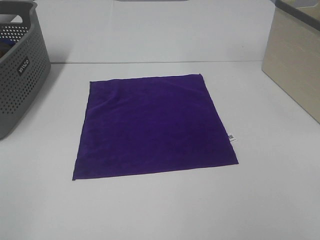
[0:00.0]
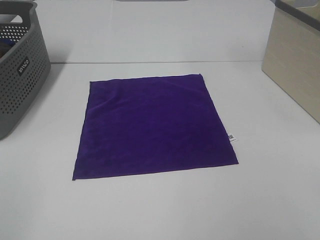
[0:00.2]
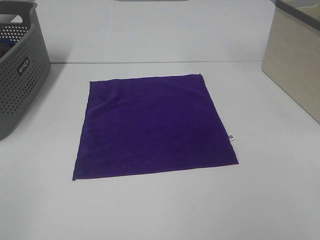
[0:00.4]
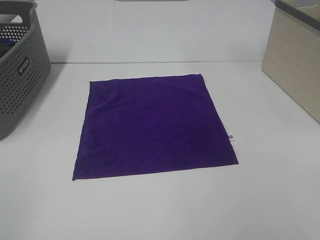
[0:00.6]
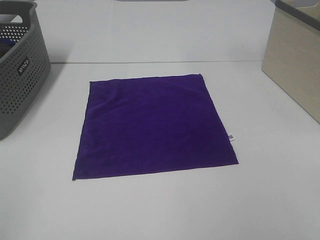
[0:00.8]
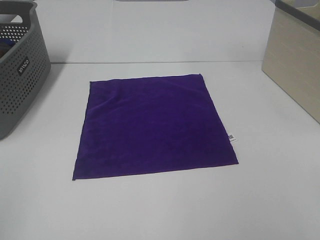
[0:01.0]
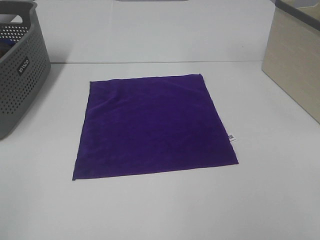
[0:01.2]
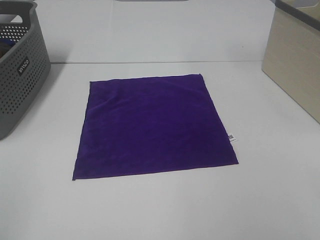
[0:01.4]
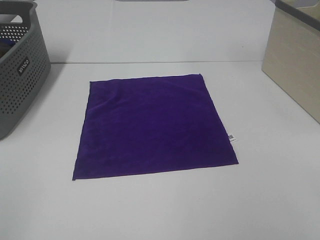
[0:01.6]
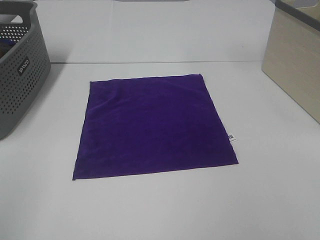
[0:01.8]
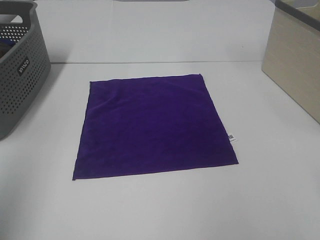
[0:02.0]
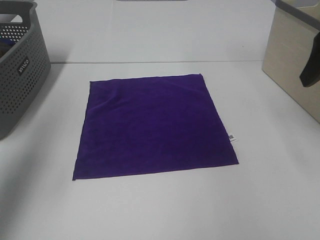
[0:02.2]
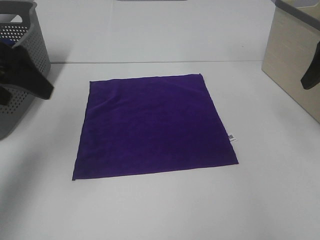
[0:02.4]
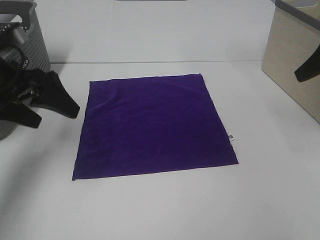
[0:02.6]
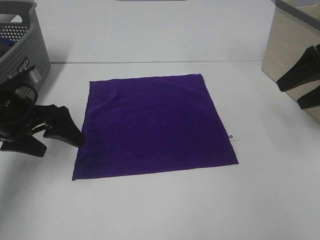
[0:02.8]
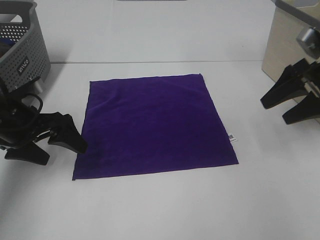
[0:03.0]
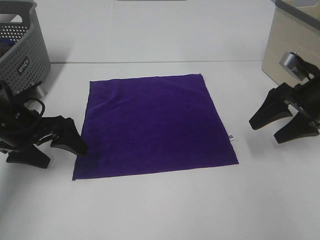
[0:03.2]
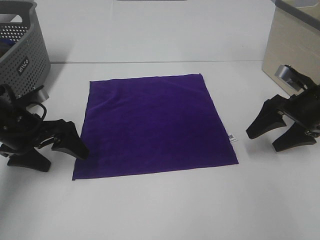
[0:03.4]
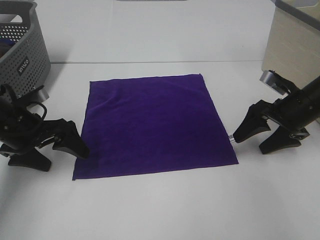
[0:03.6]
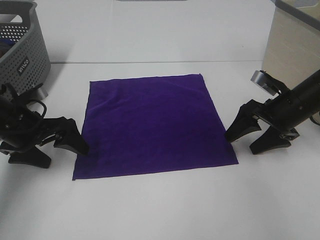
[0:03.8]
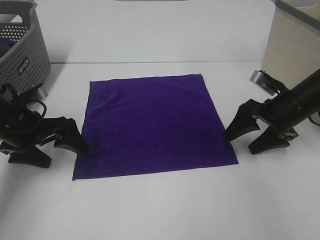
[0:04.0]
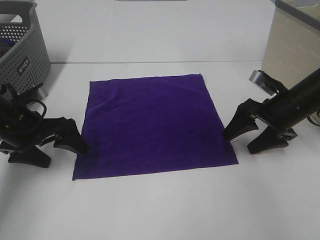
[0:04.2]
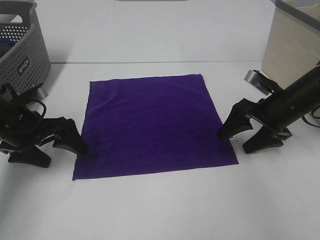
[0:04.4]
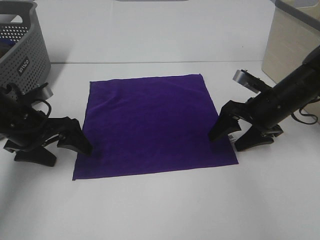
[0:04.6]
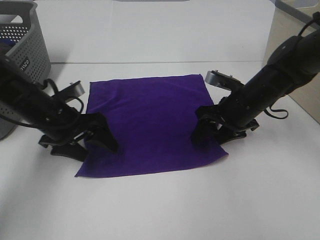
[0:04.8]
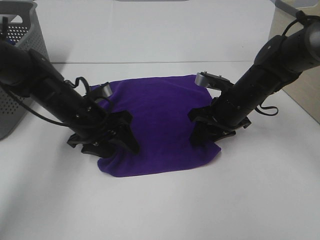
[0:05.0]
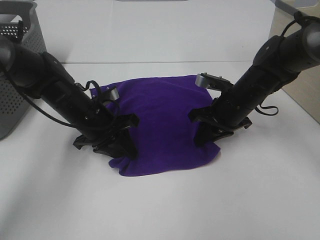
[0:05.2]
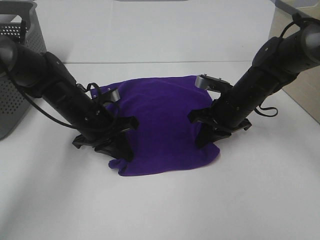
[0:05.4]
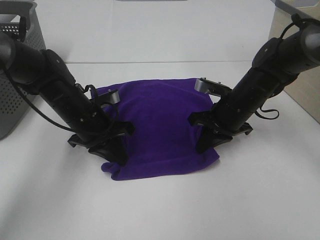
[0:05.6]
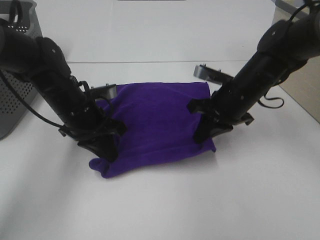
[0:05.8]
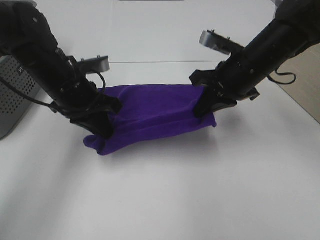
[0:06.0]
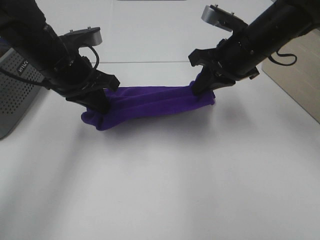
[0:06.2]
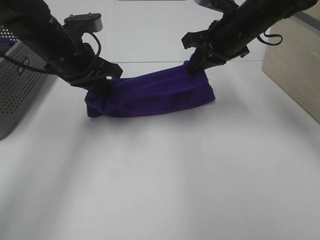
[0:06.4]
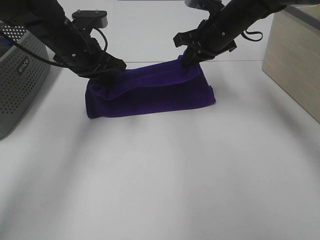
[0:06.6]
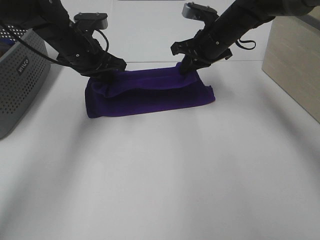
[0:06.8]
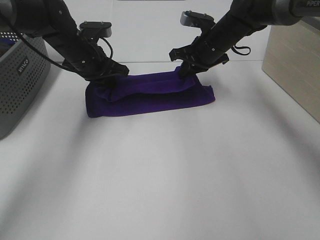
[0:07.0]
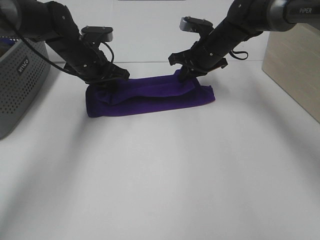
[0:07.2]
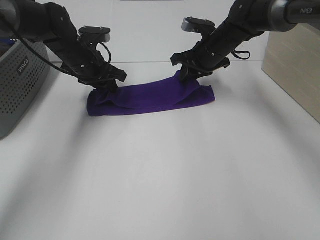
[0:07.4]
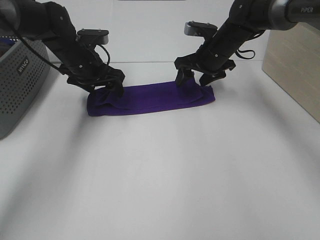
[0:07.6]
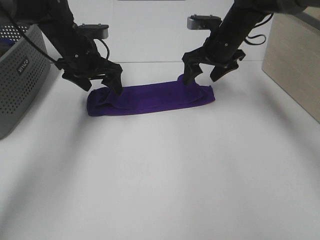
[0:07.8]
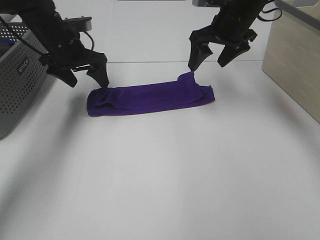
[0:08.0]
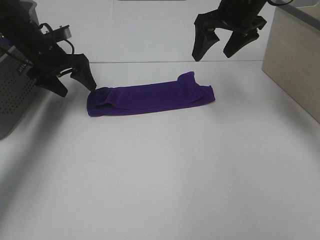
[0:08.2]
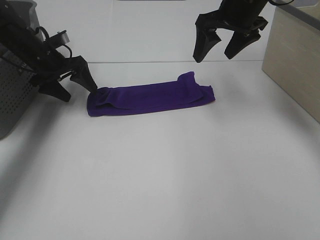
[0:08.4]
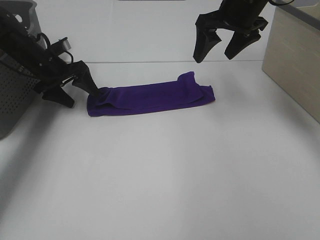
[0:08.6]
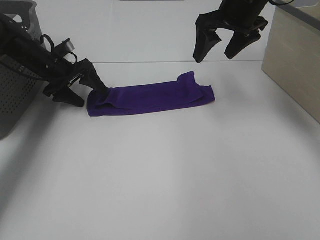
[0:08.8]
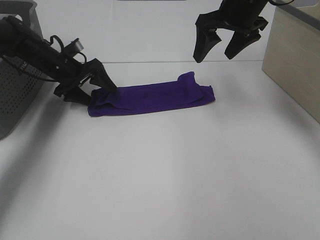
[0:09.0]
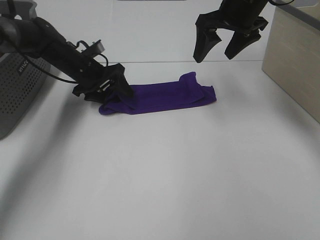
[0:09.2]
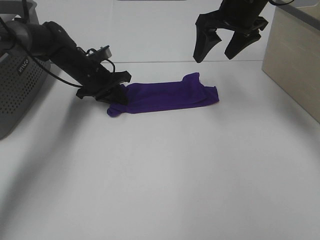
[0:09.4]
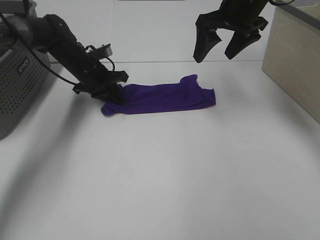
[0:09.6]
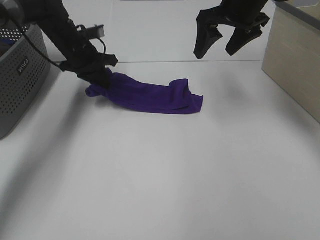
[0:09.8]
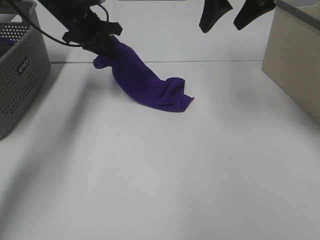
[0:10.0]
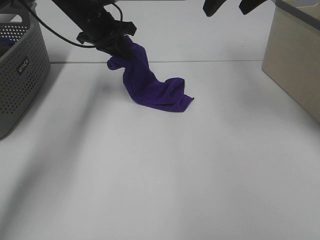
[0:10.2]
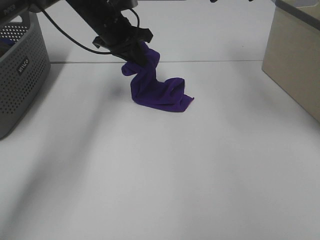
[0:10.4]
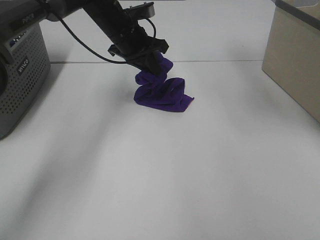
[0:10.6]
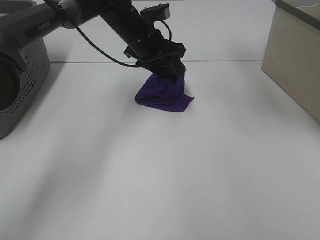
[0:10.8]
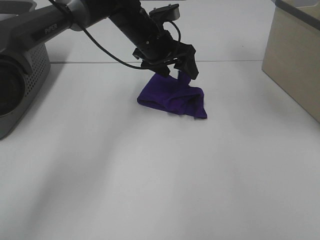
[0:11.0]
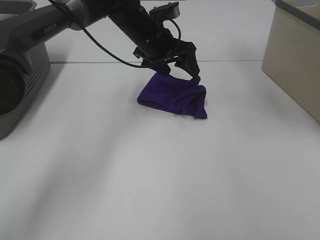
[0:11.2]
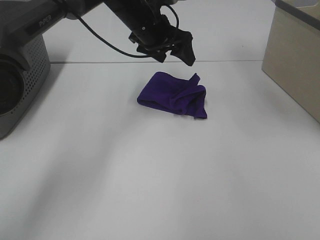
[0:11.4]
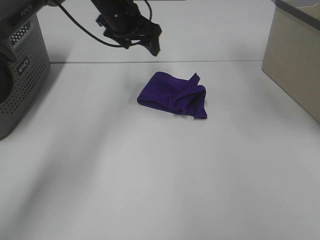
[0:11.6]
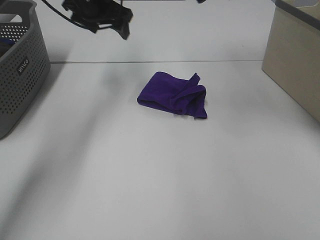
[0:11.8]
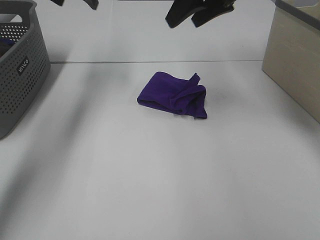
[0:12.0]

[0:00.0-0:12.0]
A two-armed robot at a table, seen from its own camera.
Task of the whole recording: Fold towels.
Step, 0:00.0 to 0:05.4: Left hand: grab the bottom left corner of purple towel.
Step, 0:00.0 to 0:05.4: Right hand: grab the bottom right corner of purple towel.
Step, 0:05.6 to 0:07.2: Left hand: fold the purple towel up.
Step, 0:05.6 to 0:07.2: Right hand: fold the purple towel up.
Step, 0:07.4 to 0:10.8: Left hand: fold the purple towel from left to right.
0:01.6 to 0:03.0: The right gripper goes some 35 cm forward. The left gripper shifts roughly 35 cm forward and downward.
0:03.0 to 0:04.4: The right gripper is displaced downward and to the left by approximately 10 cm.
0:04.4 to 0:06.0: The left gripper heads to the right and upward, covering roughly 10 cm, and closes its fingers, while the right gripper travels upward and to the left by approximately 15 cm, and closes.
0:06.0 to 0:07.6: The grippers both shift forward by about 15 cm. The left gripper opens. Meanwhile the right gripper opens up.
0:07.6 to 0:09.0: The right gripper is displaced upward and backward by roughly 15 cm, while the left gripper travels to the left by approximately 5 cm.
0:09.0 to 0:10.4: The left gripper goes some 15 cm to the right and upward, and closes its fingers. Meanwhile the right gripper shifts about 15 cm upward and backward.
0:10.4 to 0:12.0: The right gripper is displaced downward by approximately 5 cm. The left gripper goes approximately 15 cm upward and to the left, and opens.

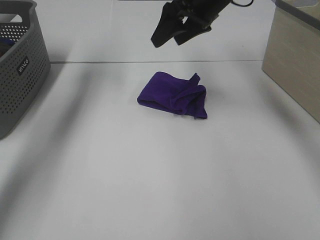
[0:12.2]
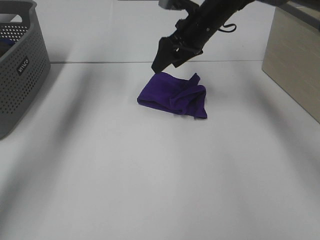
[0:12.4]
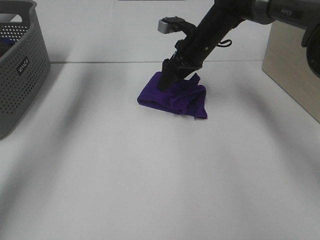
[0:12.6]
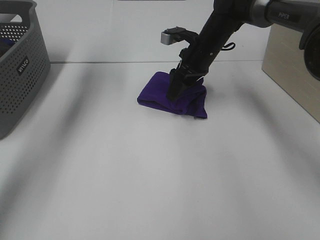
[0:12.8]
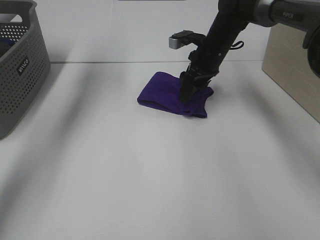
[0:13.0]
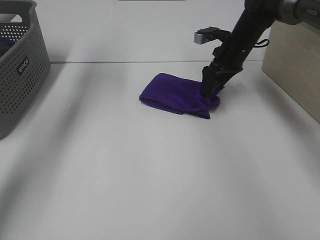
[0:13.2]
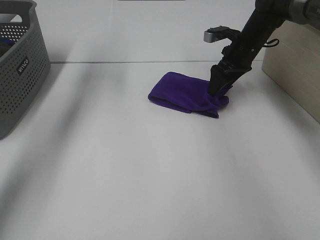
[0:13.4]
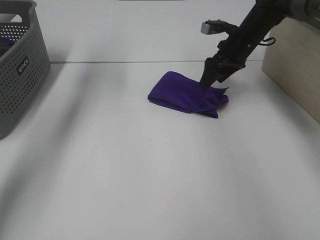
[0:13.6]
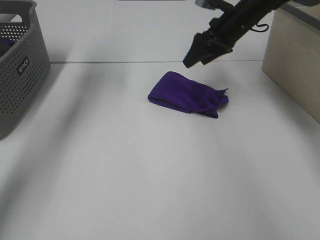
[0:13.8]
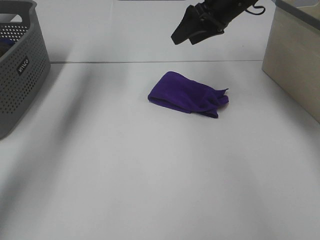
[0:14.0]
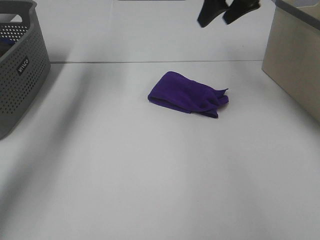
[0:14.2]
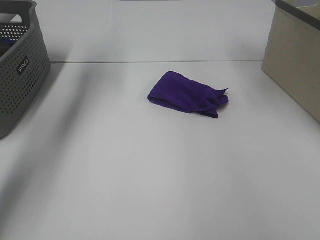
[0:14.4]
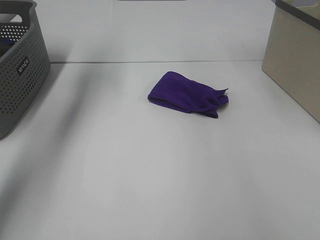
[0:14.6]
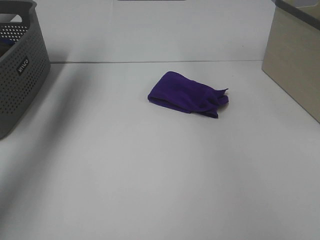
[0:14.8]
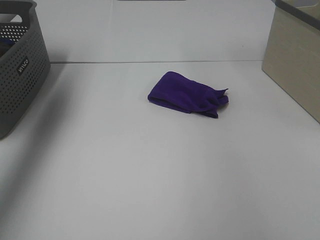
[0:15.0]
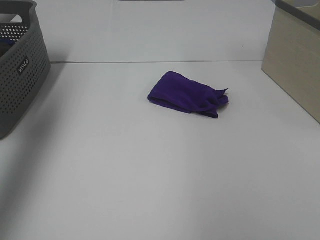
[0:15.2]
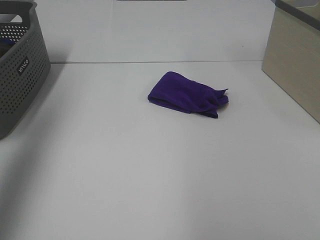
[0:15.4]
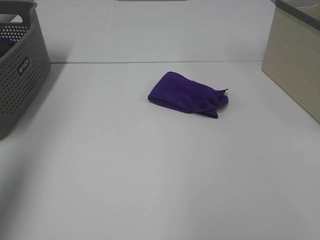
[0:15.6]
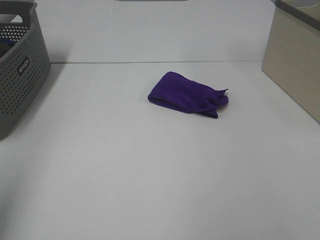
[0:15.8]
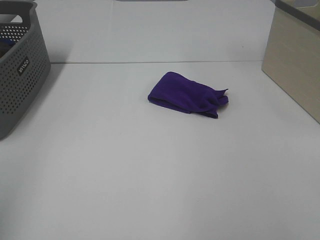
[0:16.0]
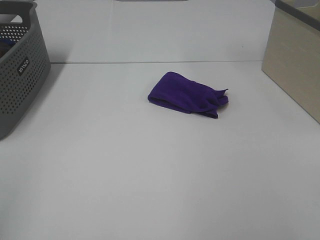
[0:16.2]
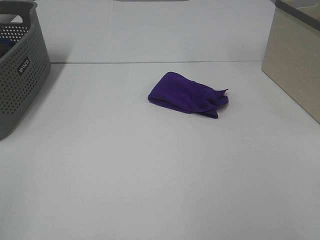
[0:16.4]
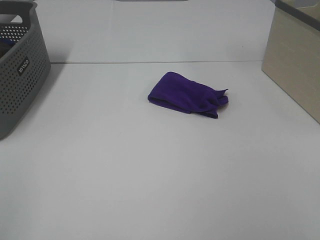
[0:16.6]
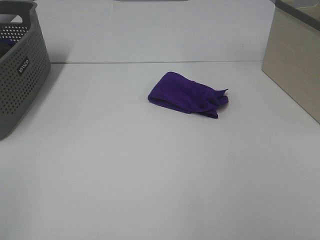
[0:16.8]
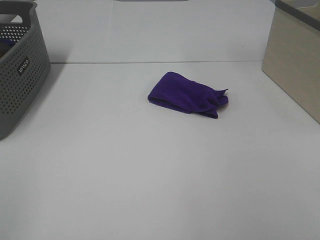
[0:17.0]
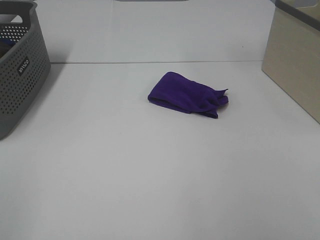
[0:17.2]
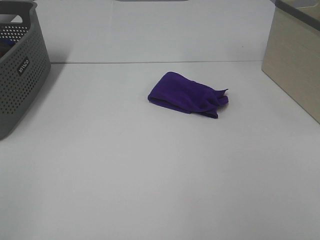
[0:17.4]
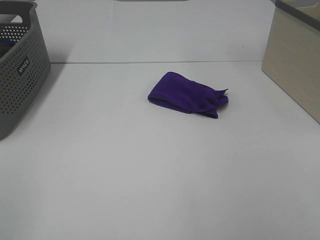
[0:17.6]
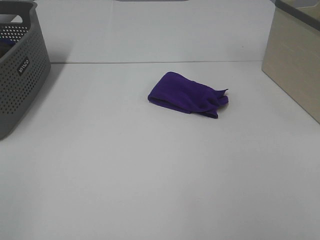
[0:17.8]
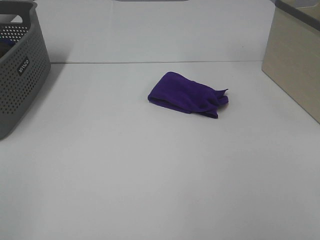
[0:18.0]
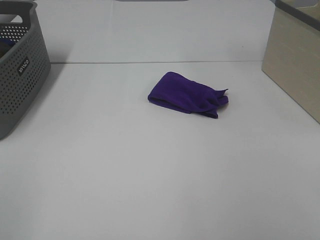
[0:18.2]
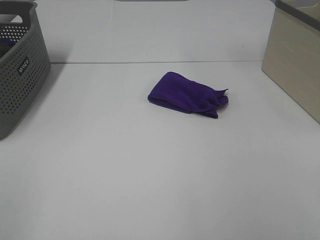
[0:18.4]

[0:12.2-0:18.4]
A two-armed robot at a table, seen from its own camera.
Task of the whole recording: Fold towels.
Step, 0:12.2 to 0:13.6: Right hand: adjust the purple towel.
0:12.2 to 0:13.8: The right gripper heads to the right and downward, covering some 10 cm.
0:13.8 to 0:15.4: The right gripper goes roughly 50 cm backward, upward and to the right. Meanwhile the left gripper heads backward, covering approximately 30 cm.
0:15.4 to 0:16.8: The left gripper shifts about 25 cm backward and downward.
0:16.8 to 0:18.4: Both grippers stay put.
